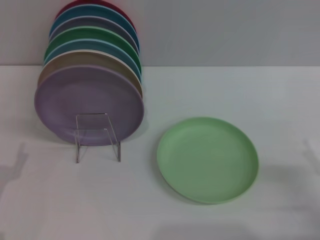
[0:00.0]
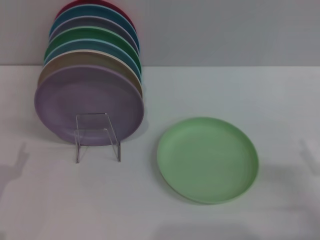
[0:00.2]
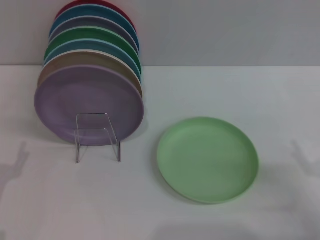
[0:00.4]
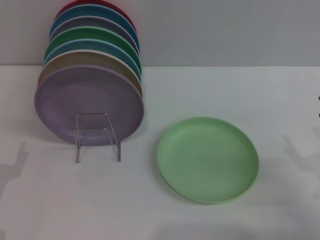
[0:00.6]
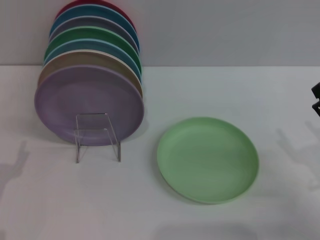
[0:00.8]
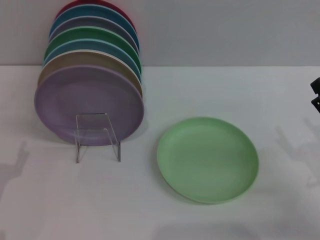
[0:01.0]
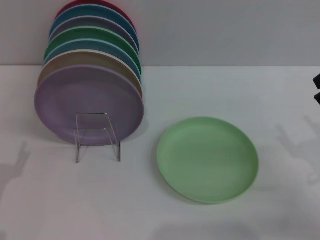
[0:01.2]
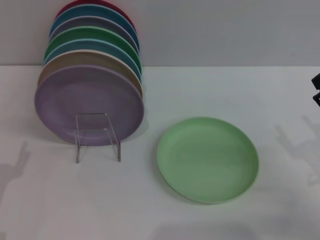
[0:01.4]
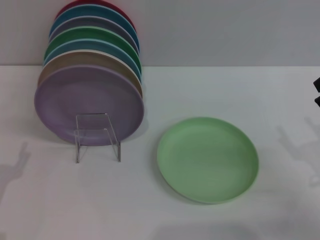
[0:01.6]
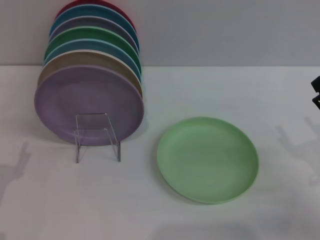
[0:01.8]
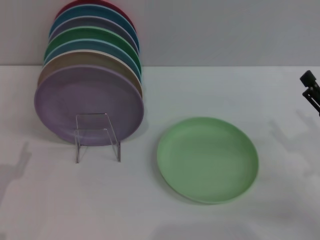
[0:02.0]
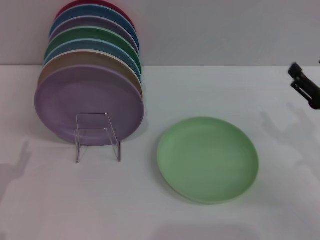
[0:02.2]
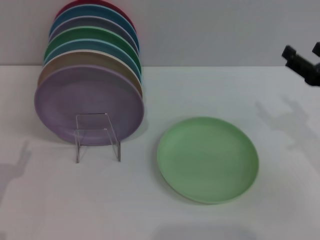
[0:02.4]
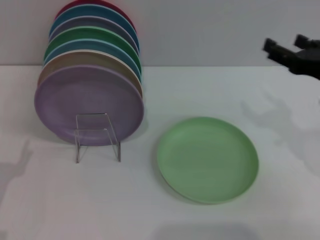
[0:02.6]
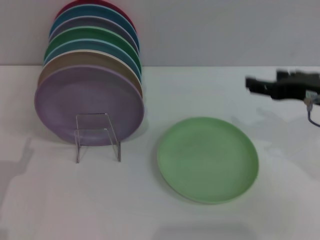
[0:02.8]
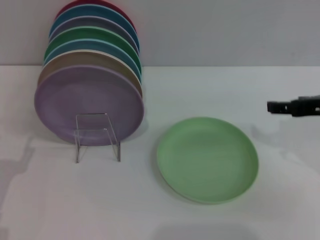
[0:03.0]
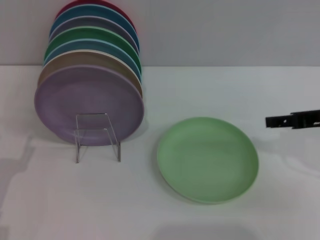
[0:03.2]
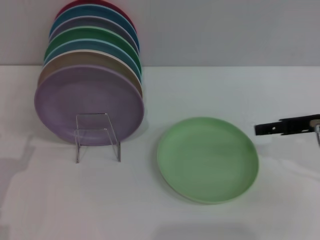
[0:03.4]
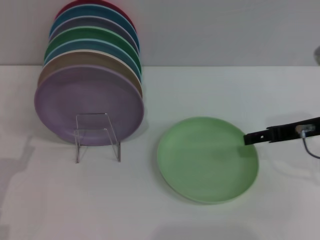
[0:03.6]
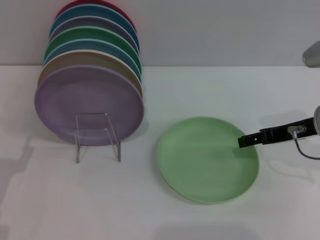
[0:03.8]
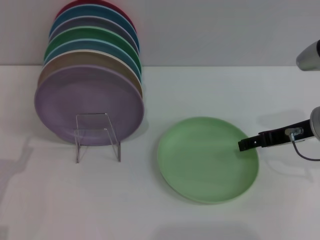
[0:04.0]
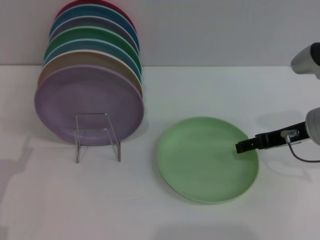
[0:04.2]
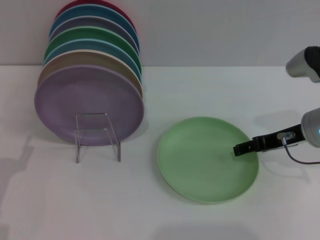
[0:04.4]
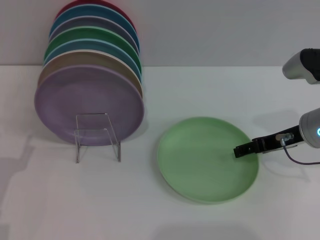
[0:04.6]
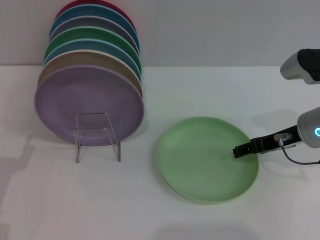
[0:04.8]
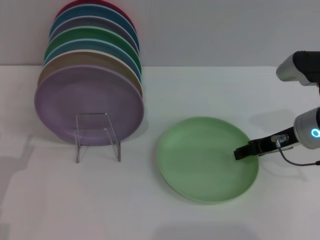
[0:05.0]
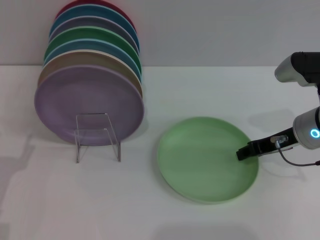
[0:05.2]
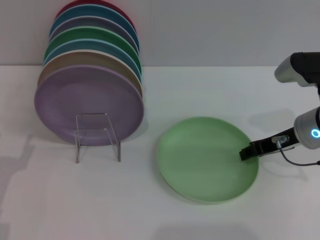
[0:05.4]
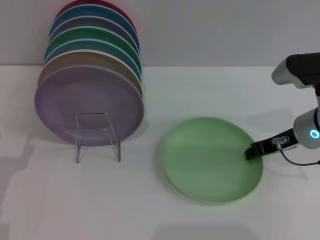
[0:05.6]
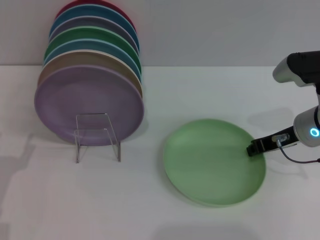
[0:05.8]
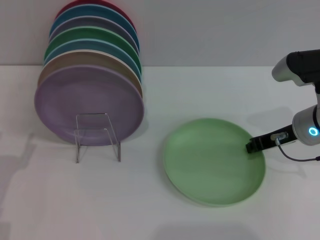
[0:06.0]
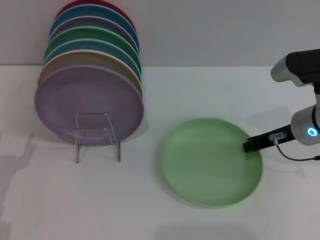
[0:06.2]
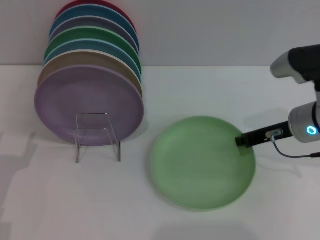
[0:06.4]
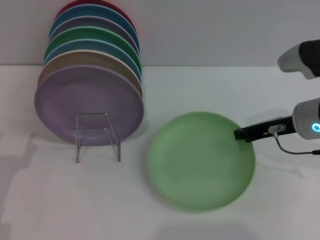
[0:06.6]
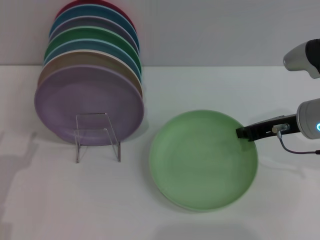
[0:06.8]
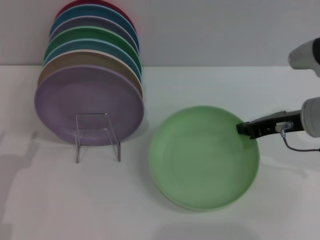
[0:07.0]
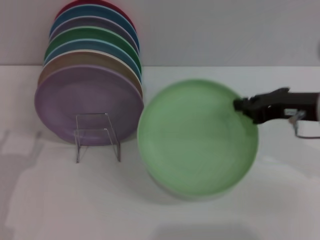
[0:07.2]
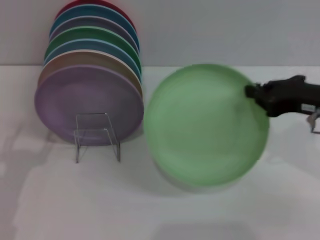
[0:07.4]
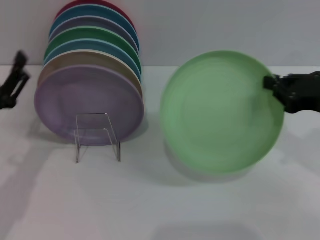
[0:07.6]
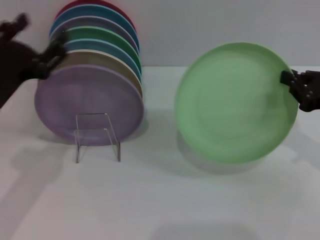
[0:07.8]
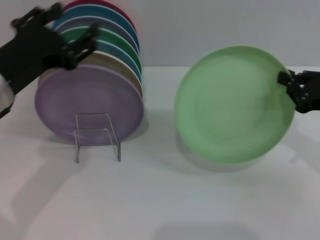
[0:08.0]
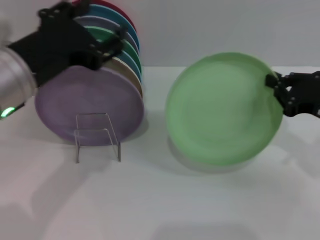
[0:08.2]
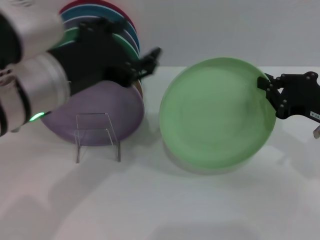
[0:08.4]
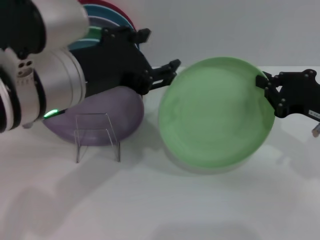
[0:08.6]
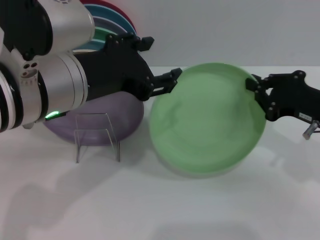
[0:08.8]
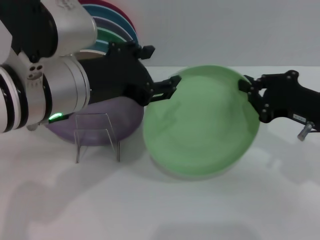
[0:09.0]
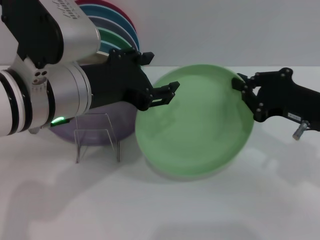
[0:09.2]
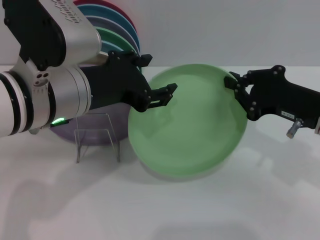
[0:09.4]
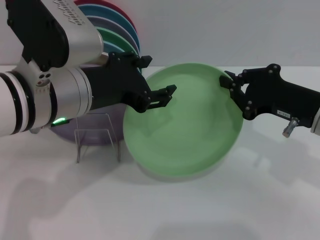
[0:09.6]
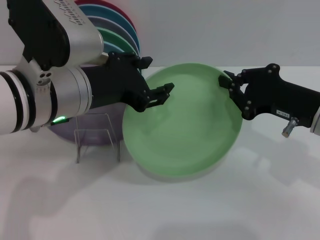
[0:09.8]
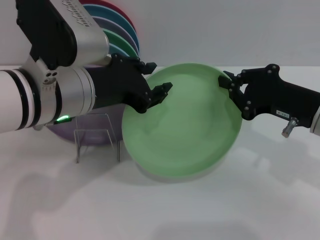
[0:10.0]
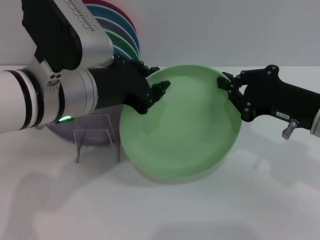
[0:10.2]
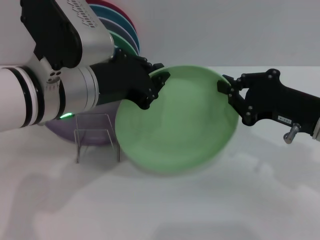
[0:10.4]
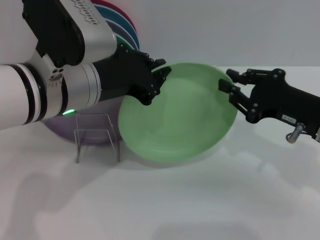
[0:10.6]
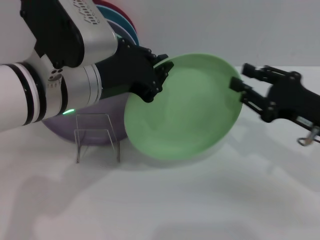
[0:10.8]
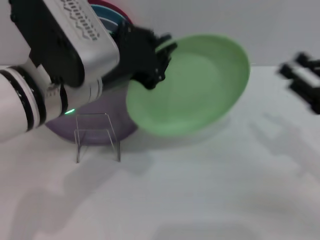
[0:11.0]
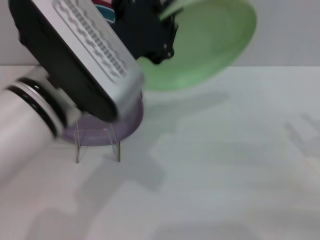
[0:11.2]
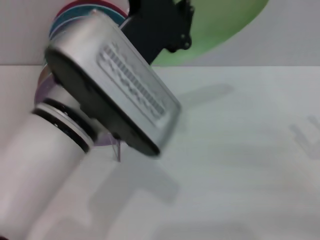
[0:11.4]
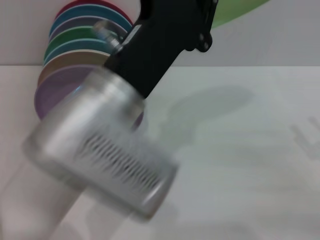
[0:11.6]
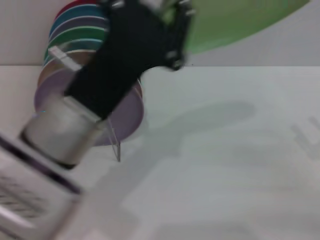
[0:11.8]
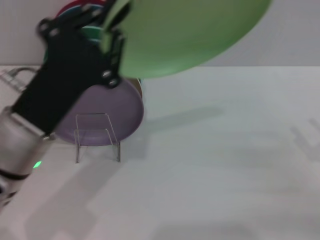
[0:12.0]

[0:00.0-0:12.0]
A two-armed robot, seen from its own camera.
Task of the whole recording: Grip the plate with one hand, pass it to the other, then set it on the shelf.
Step, 0.0 to 7.8 s: Pick up the plate with the right gripper.
Step, 8.2 to 11.2 s: Pass the plate from the right gripper to the left gripper.
1.6 to 3.0 s: The right gripper shifts some 15 cm upward and forward.
3.0 to 4.4 s: The right gripper is displaced downward by some 5 cm.
4.4 to 6.0 s: The right gripper closes up.
6.0 to 7.6 s: The right gripper travels backward and upward by some 10 cm. The left gripper is displaced upward by approximately 5 cm.
7.6 to 9.0 s: The left gripper moves upward and to the right, about 20 cm.
9.0 to 10.4 s: The left gripper closes up.
10.4 to 12.0 s: The right gripper is displaced to the right, backward and downward by approximately 15 cm, and opens up; the left gripper moves downward and backward, some 10 cm.

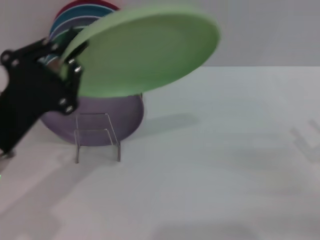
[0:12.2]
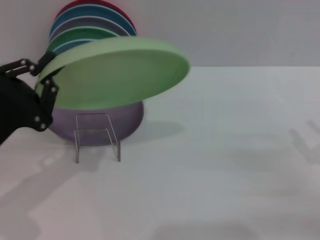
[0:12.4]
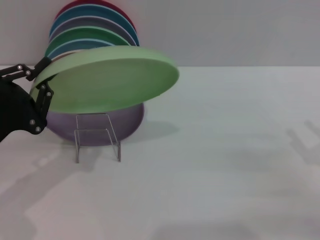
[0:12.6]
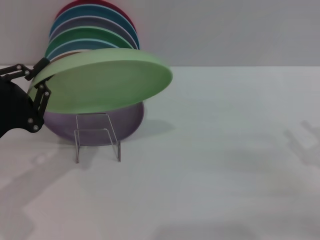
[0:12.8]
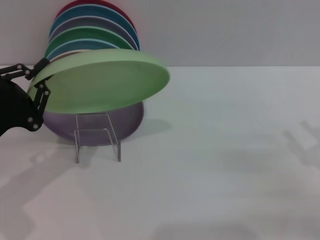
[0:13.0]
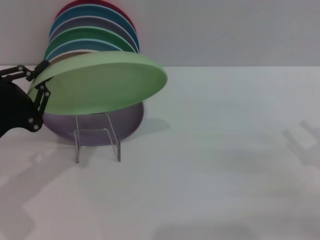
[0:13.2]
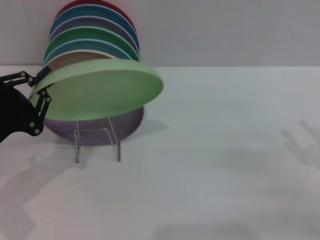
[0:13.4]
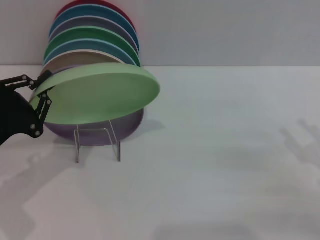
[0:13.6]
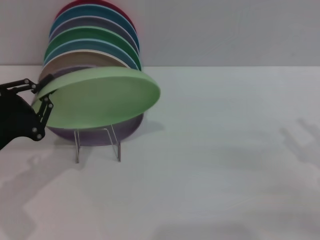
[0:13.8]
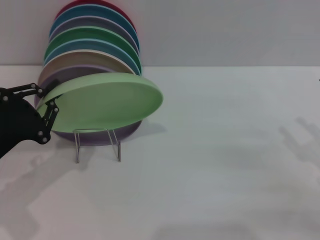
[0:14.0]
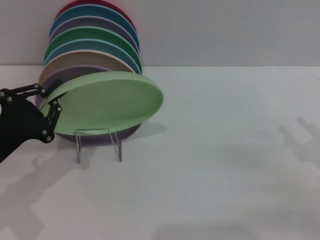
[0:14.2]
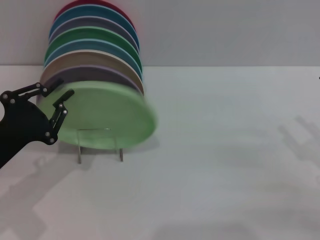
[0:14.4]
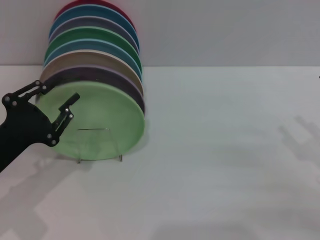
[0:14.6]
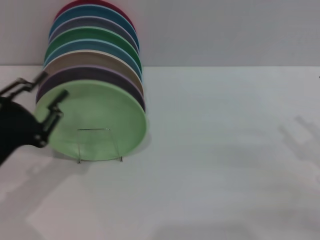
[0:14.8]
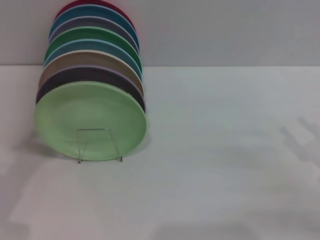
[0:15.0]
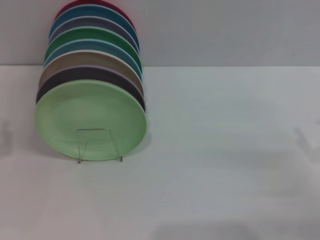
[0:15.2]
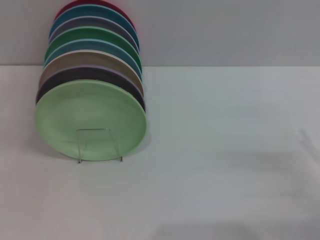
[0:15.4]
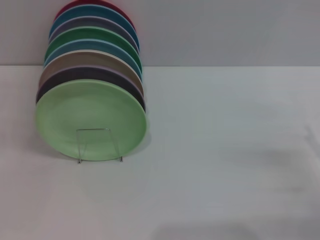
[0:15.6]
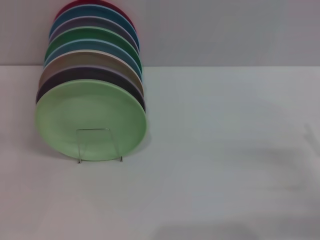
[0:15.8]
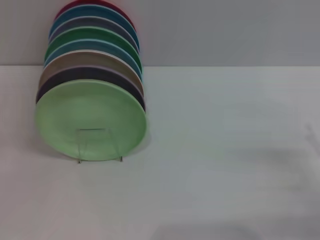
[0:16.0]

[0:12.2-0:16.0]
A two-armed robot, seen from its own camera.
Task of the whole recording: Grip the plate with one hand, pass it to the other, then set it on the shelf.
Step, 12.2 to 15.0 s: Place the plate on the shelf with the left gripper.
12.2 to 13.4 s: The left gripper heads to the left, covering about 5 cm.
13.4 to 14.8 s: The left gripper opens its fingers.
14.8 to 16.0 s: The left gripper moves to the left, about 5 cm, and opens its fingers.

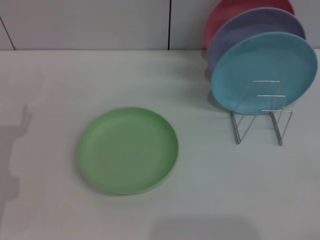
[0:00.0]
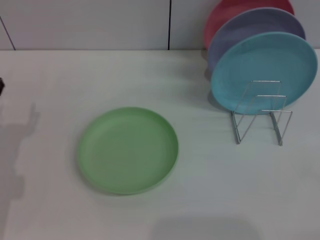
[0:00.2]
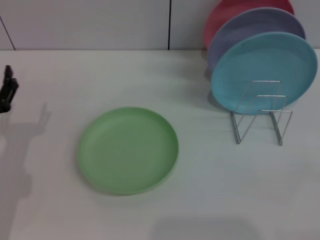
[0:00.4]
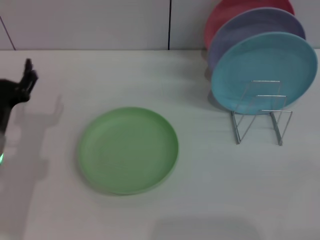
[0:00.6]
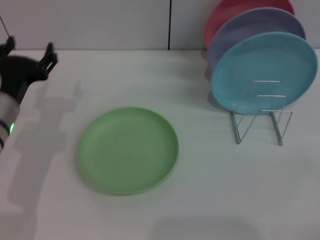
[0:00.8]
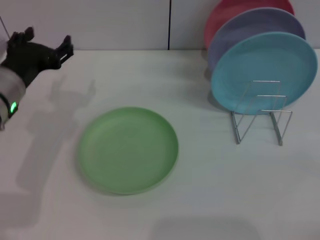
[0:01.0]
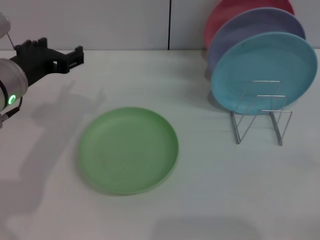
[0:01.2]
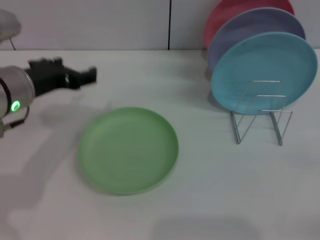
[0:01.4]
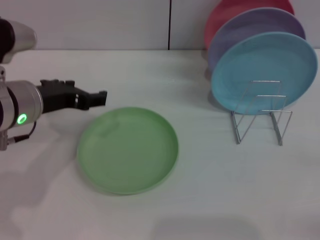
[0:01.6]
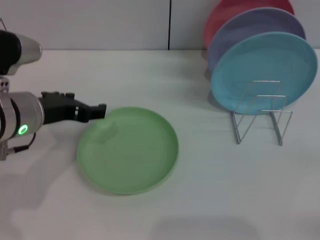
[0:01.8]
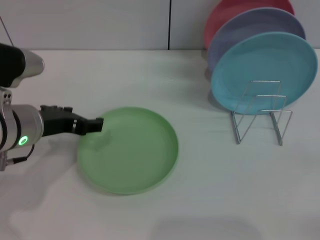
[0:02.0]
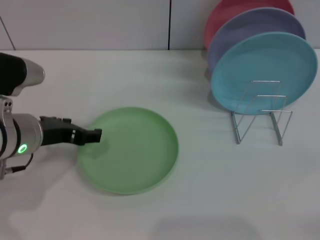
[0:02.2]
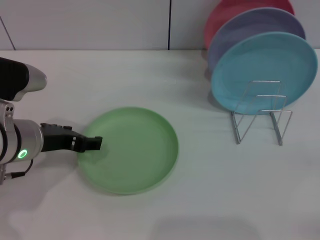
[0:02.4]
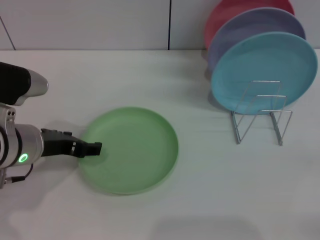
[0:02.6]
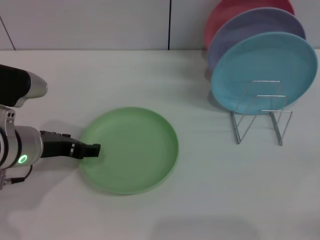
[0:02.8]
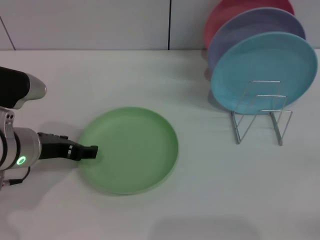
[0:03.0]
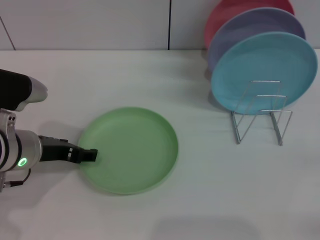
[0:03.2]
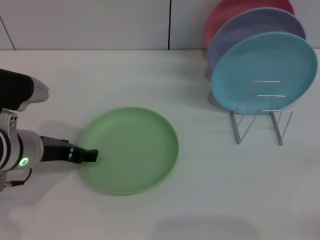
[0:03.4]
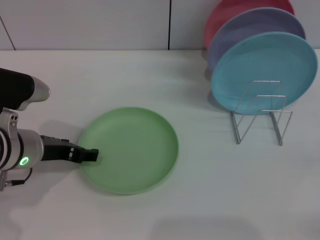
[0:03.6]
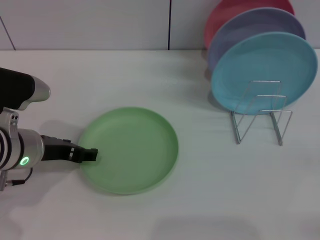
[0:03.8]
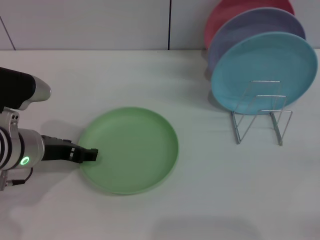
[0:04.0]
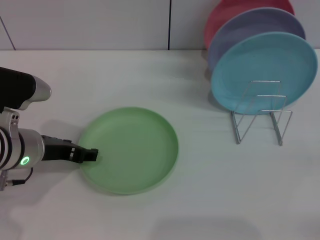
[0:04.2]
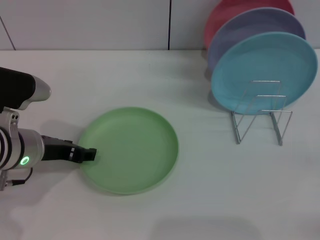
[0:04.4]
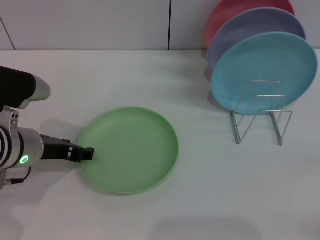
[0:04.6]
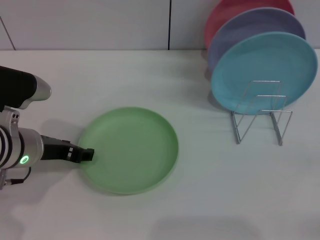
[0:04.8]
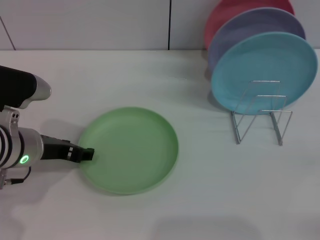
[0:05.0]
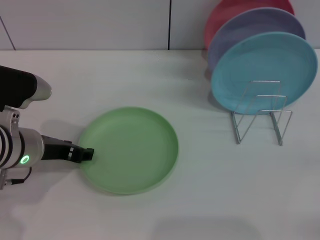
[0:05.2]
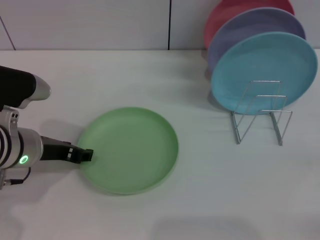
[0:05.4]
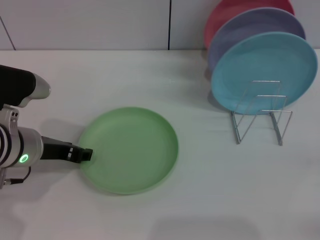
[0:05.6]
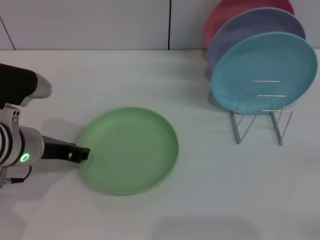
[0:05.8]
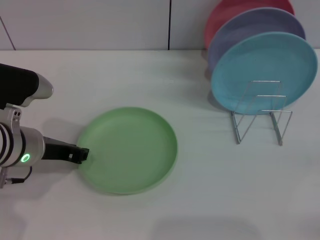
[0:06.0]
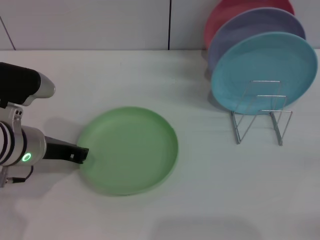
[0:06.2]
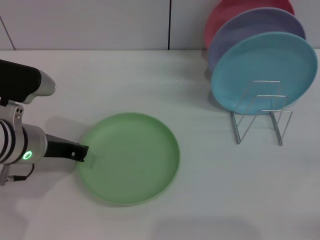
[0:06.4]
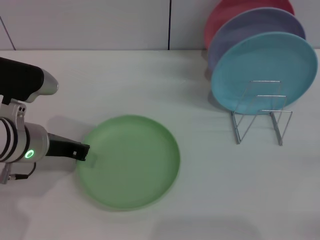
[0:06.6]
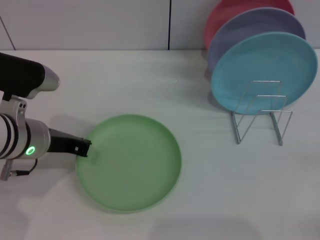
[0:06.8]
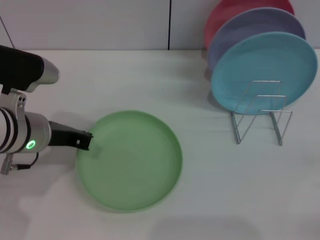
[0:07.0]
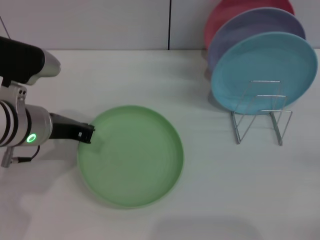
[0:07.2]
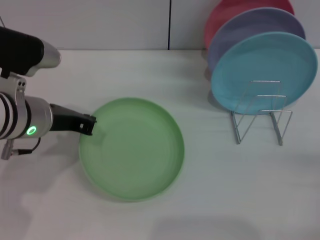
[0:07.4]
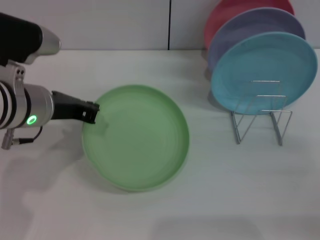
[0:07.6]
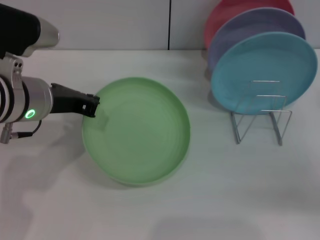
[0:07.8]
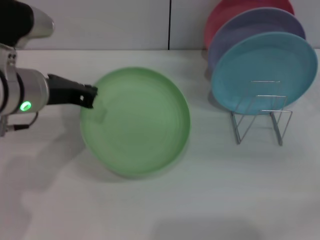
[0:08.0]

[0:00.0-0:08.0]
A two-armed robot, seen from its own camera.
Task of the whole recording: Grip the plate with one hand, pass it to the other, then set it on the shelf.
0.0 to 1.6 s: The left gripper shifts roughly 15 cm upward, to the right and forward.
1.6 to 3.2 s: The left gripper shifts approximately 5 cm downward.
3.2 to 4.8 s: The two grippers keep their place.
4.8 to 6.4 s: The left gripper closes.
6.4 to 8.0 s: The left gripper goes some 5 cm upward. The right gripper shifts about 20 cm upward and forward.
